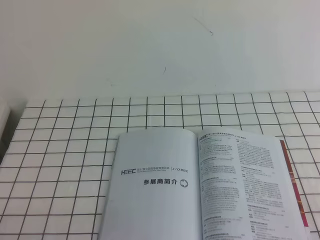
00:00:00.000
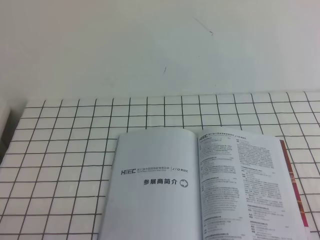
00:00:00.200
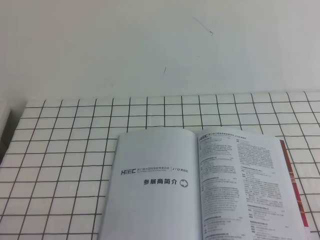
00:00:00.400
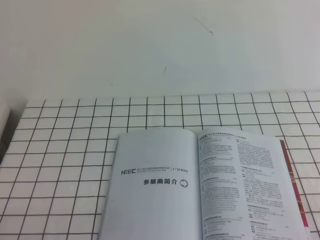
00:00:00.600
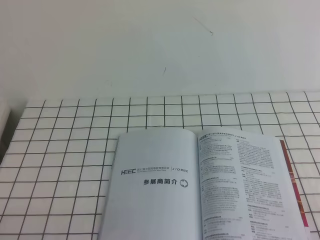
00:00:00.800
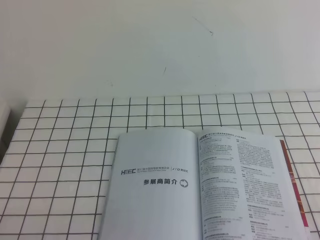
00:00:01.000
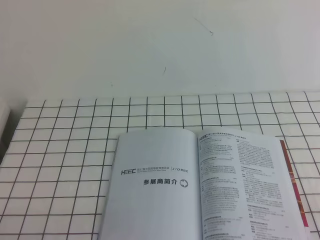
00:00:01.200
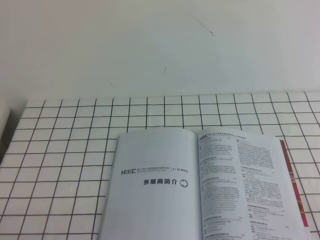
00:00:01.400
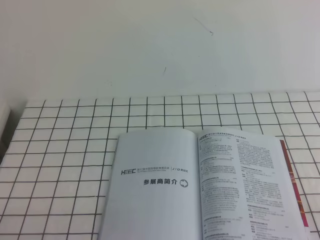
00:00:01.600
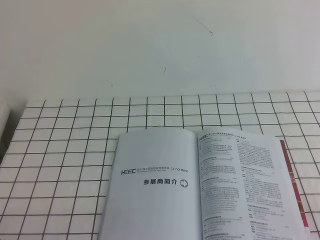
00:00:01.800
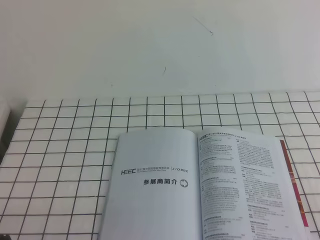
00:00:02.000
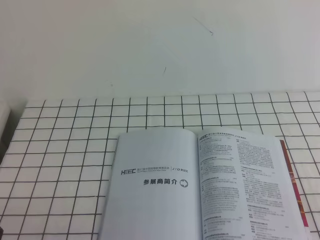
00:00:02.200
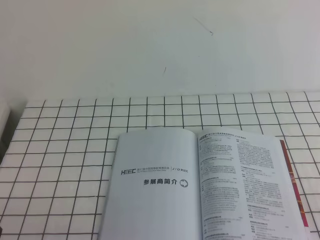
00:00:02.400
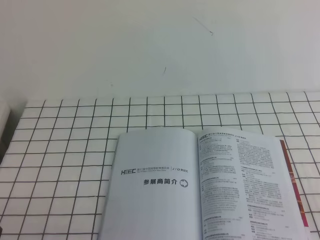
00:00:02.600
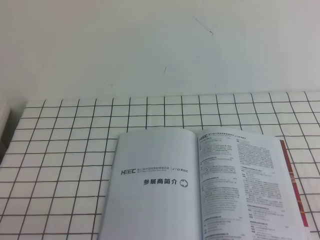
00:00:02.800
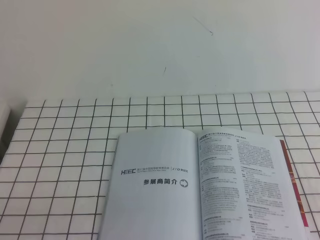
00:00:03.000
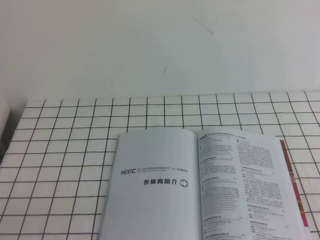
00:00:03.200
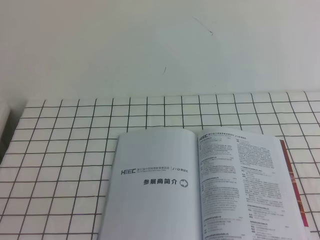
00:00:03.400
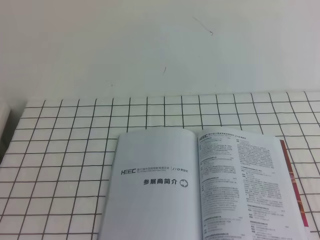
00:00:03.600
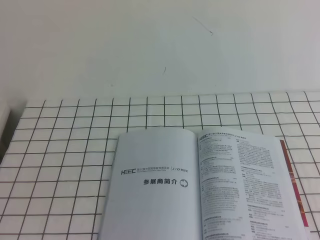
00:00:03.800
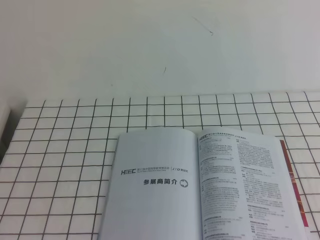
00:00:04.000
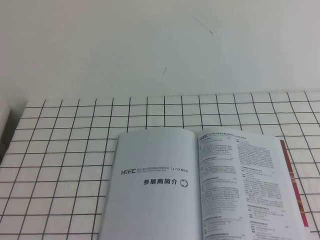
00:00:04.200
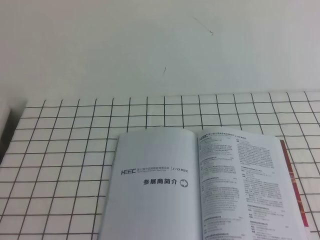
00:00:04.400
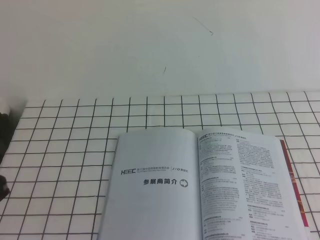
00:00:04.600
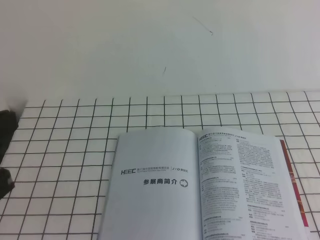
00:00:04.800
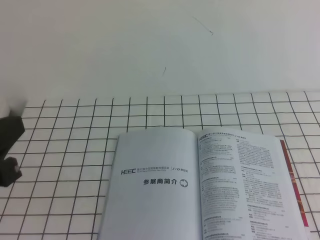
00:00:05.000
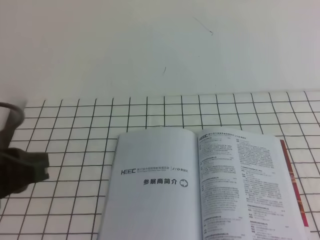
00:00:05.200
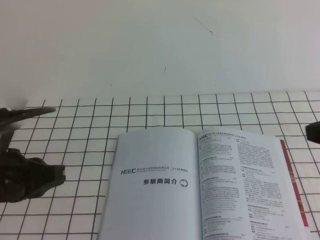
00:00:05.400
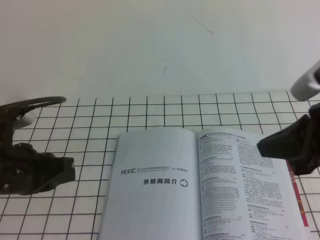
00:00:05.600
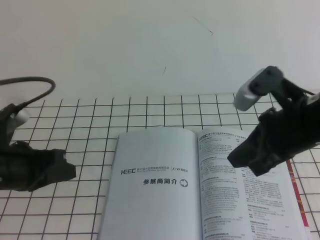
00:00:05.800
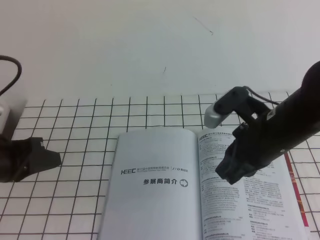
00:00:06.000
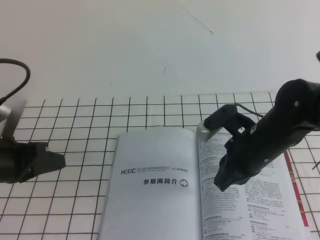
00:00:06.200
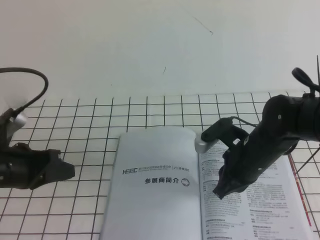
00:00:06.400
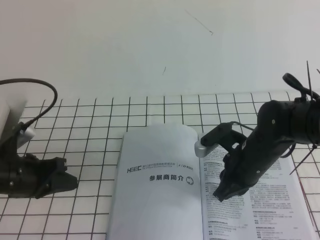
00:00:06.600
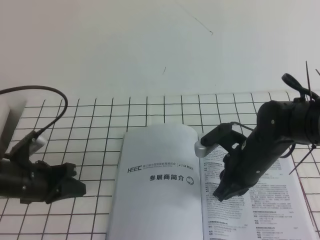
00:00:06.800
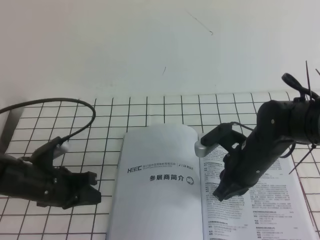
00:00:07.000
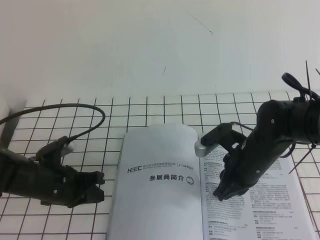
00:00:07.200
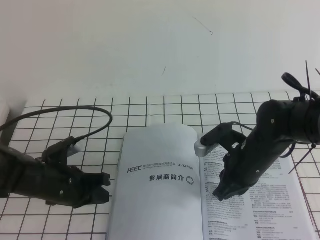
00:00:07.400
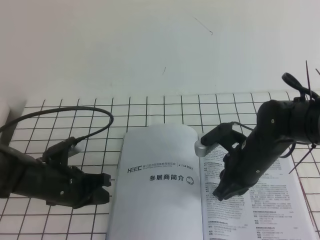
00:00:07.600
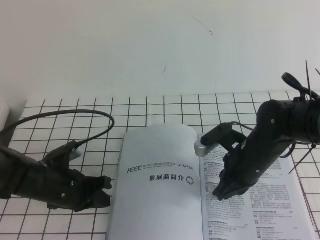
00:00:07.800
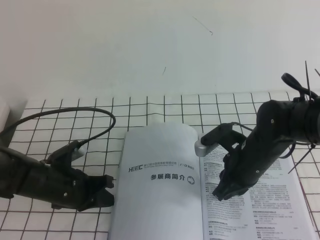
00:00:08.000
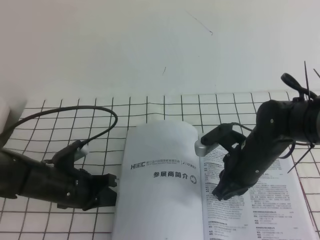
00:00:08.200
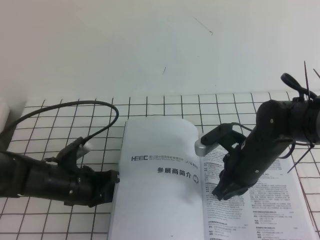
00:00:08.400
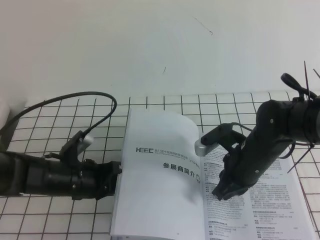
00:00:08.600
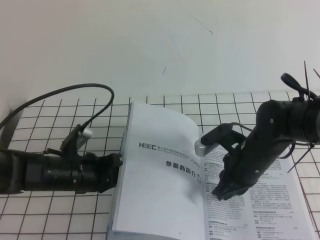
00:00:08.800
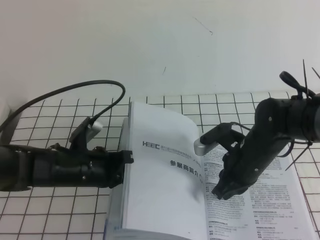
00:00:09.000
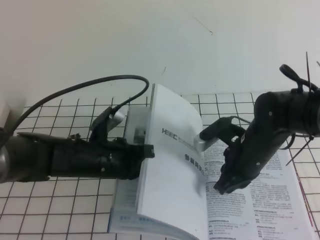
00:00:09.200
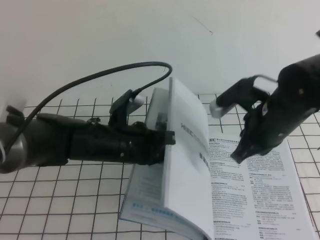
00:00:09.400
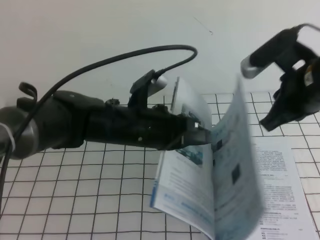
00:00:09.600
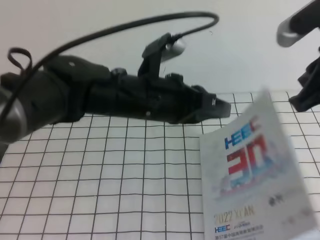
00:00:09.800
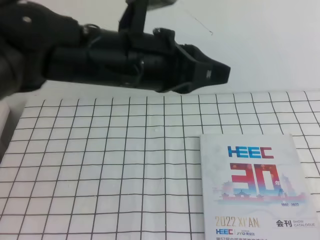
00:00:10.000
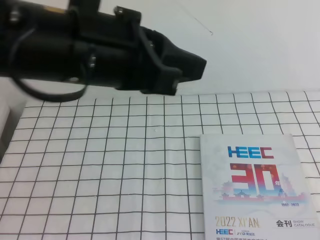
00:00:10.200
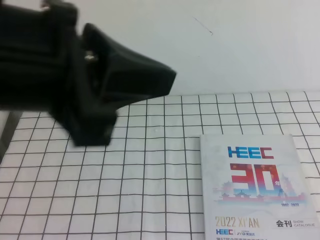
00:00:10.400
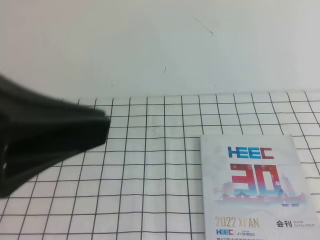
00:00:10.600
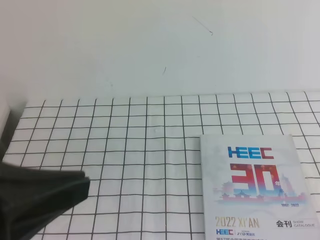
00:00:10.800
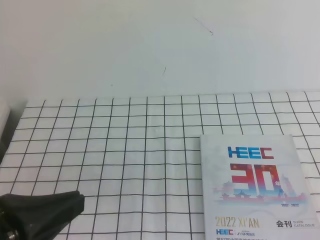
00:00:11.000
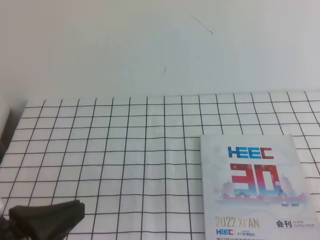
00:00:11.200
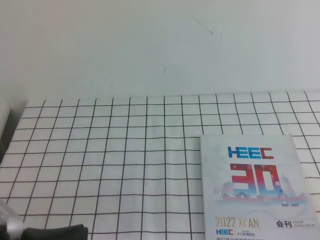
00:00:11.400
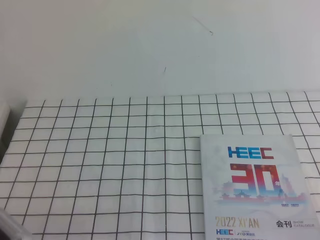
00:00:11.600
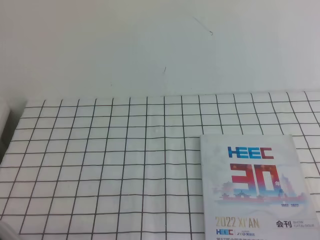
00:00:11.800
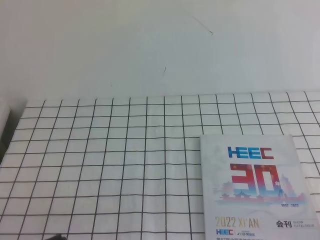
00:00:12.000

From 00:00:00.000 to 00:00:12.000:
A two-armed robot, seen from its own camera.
Task of the whole recording: on the white tablecloth, hold the book with one hand and close it with the other.
From 00:00:04.400 to 00:00:06.000: The left gripper shifts approximately 25 cm forward and downward. The right gripper travels to the left, forward and downward by approximately 25 cm.
From 00:00:06.000 to 00:00:07.600: The right gripper is displaced downward by roughly 10 cm, while the left gripper moves downward and to the right, some 15 cm.
From 00:00:07.600 to 00:00:09.000: The left gripper changes place by about 5 cm.
From 00:00:09.000 to 00:00:10.400: The left gripper shifts roughly 35 cm upward and backward. The right gripper is displaced upward, backward and to the right by about 40 cm.
From 00:00:10.400 to 00:00:12.000: Both grippers travel together downward, some 25 cm.

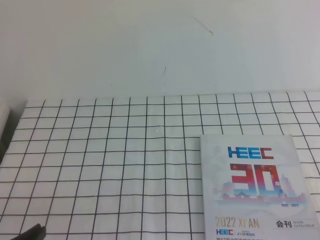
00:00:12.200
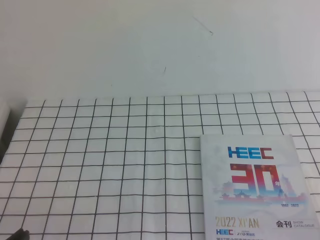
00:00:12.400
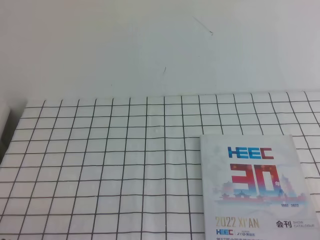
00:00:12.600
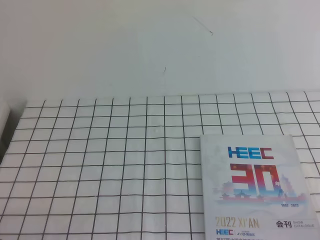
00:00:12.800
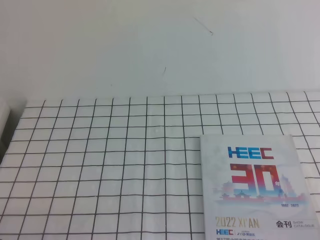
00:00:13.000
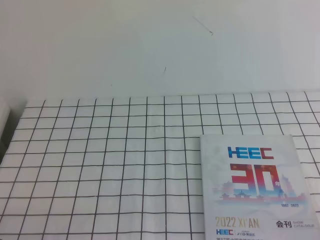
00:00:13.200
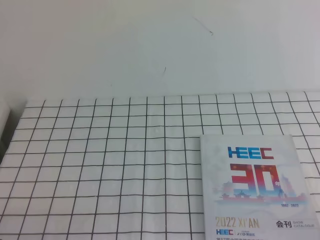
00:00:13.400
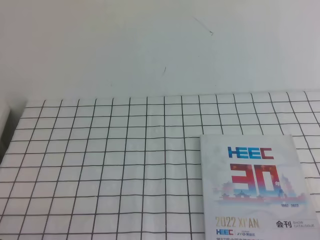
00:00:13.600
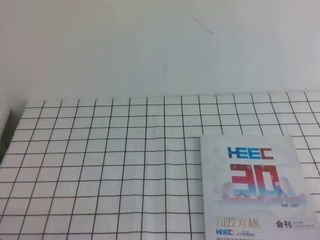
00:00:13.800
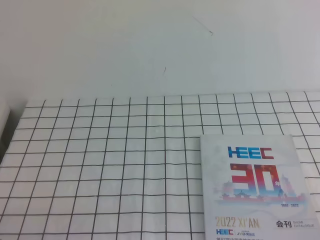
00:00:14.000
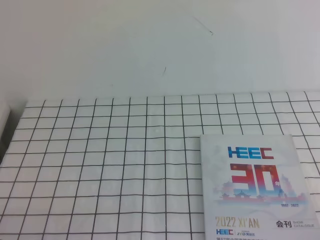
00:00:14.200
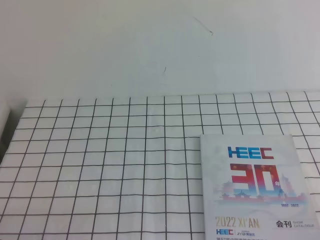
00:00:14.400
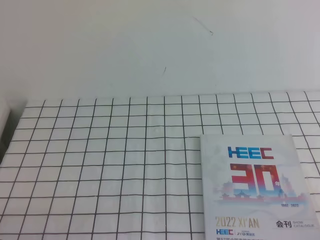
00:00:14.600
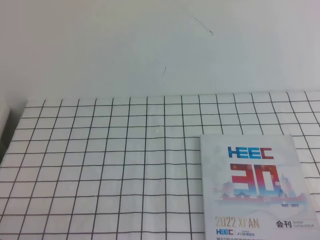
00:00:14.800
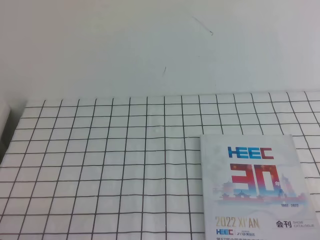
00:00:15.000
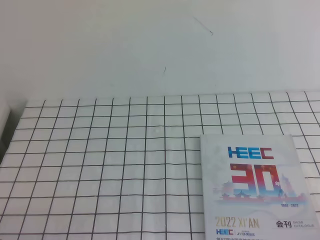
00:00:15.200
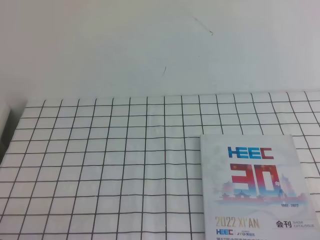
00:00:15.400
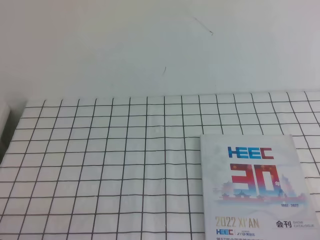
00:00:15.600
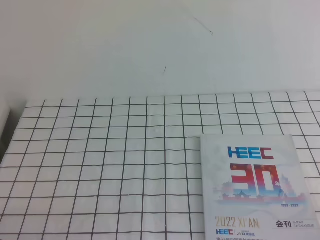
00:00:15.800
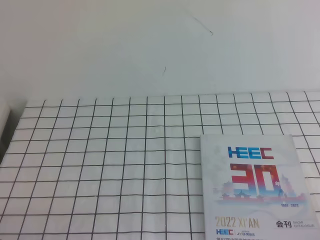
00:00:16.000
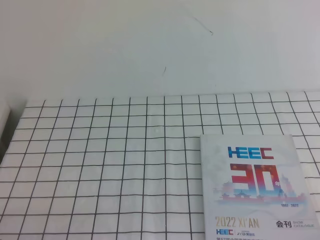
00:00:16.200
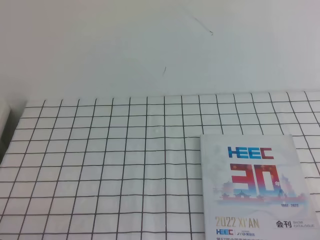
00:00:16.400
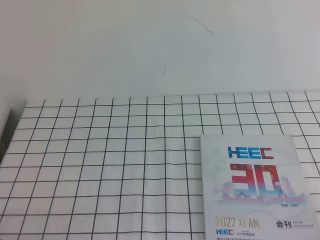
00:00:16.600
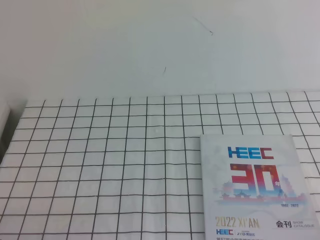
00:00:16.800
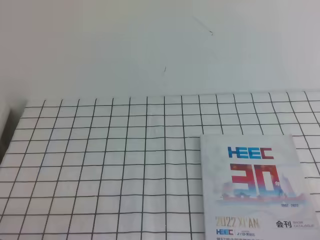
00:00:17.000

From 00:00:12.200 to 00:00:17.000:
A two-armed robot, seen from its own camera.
Task of the whole recording: on the white tablecloth, hold the book with one hand and close it with the other.
From 00:00:15.400 to 00:00:17.000: The two grippers keep their place.
